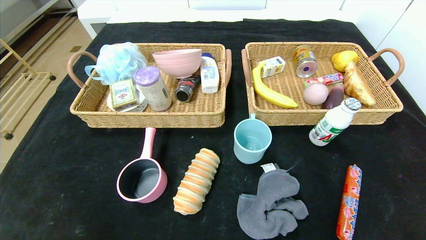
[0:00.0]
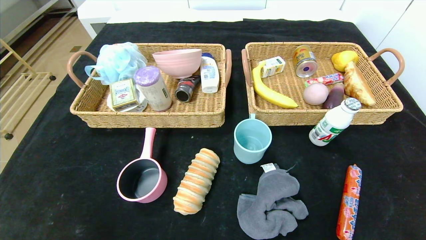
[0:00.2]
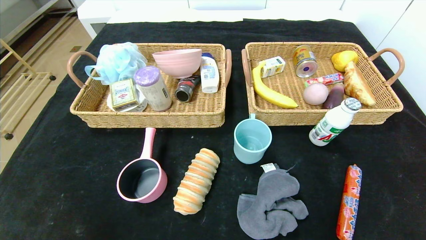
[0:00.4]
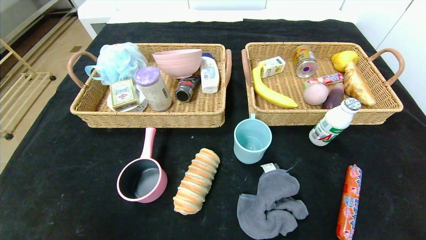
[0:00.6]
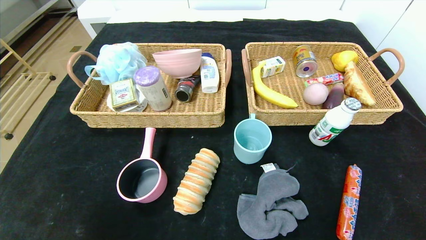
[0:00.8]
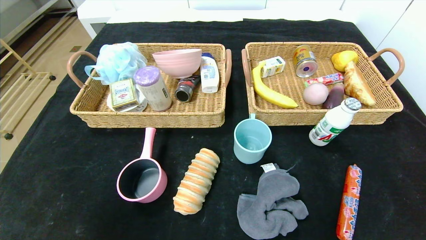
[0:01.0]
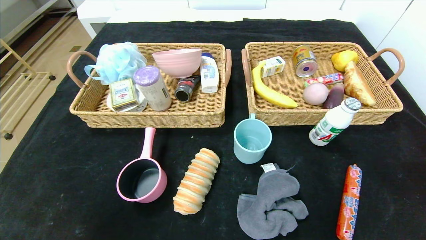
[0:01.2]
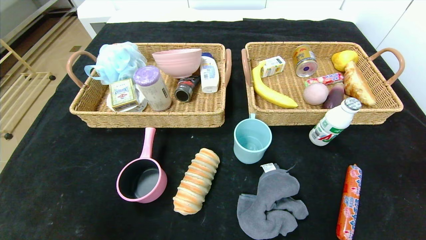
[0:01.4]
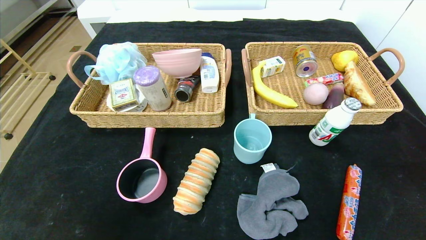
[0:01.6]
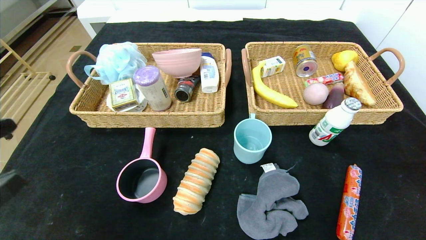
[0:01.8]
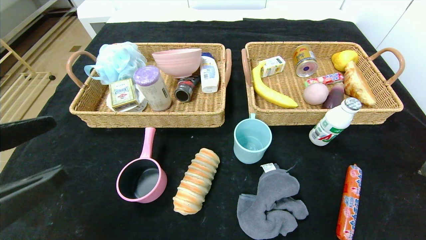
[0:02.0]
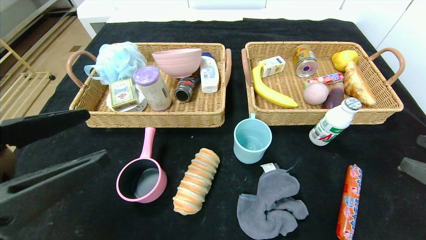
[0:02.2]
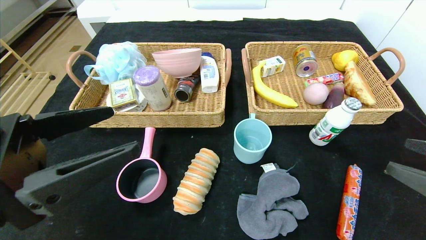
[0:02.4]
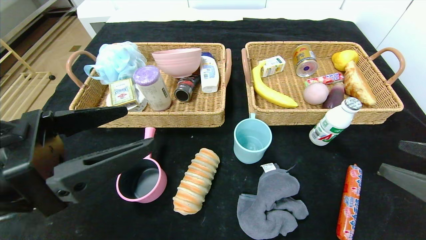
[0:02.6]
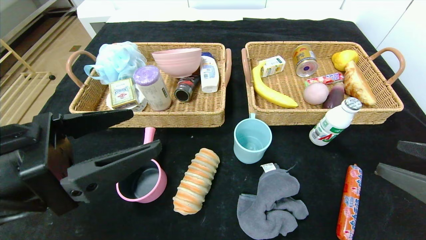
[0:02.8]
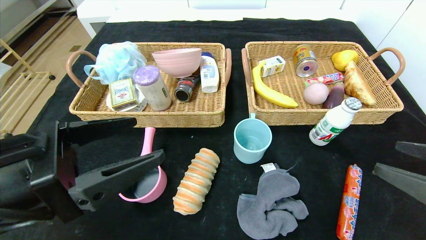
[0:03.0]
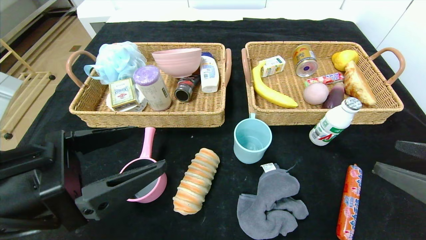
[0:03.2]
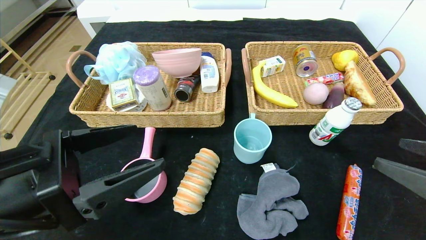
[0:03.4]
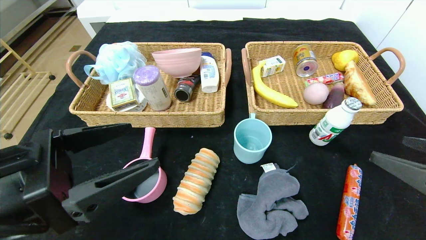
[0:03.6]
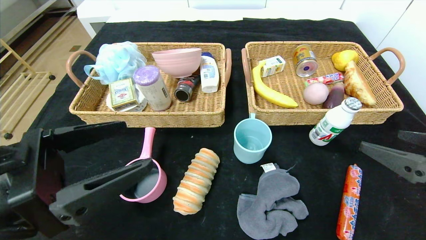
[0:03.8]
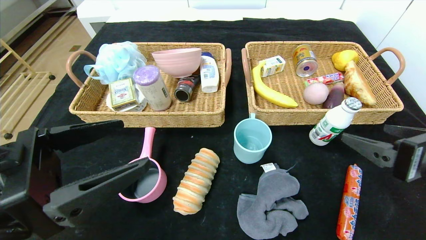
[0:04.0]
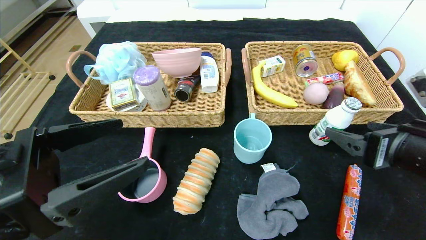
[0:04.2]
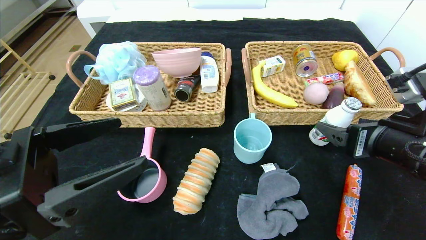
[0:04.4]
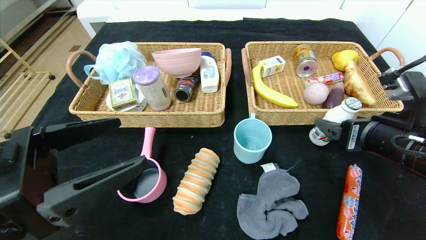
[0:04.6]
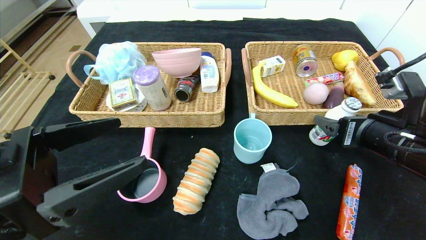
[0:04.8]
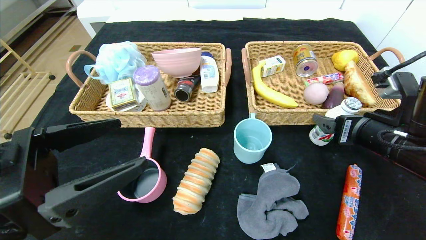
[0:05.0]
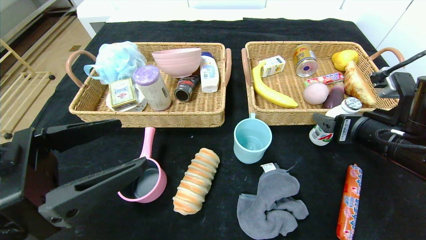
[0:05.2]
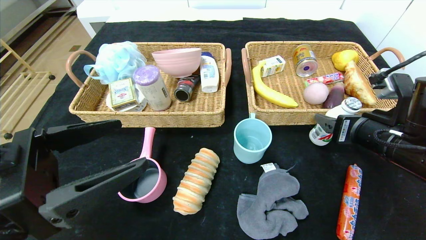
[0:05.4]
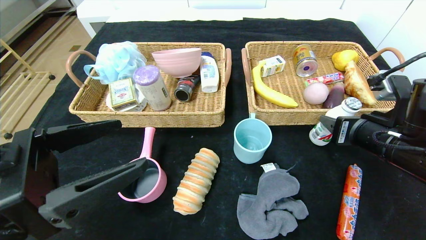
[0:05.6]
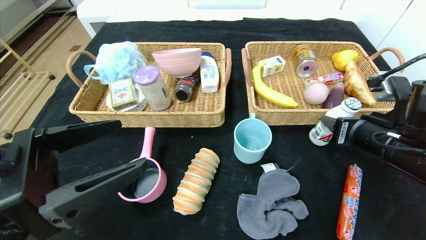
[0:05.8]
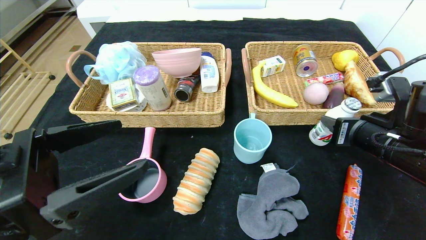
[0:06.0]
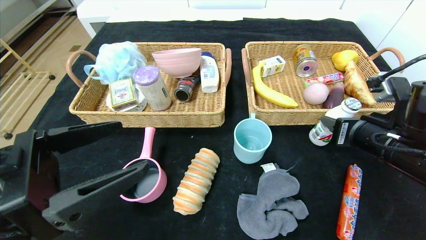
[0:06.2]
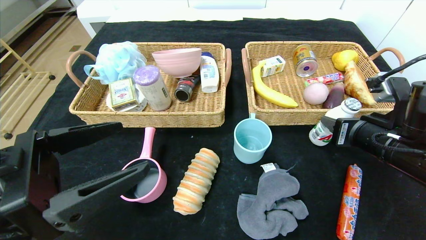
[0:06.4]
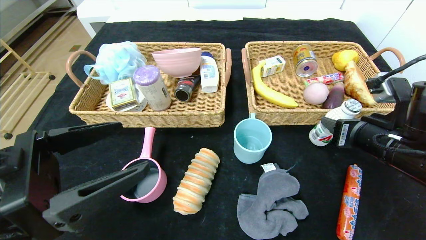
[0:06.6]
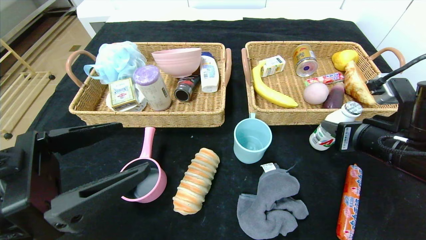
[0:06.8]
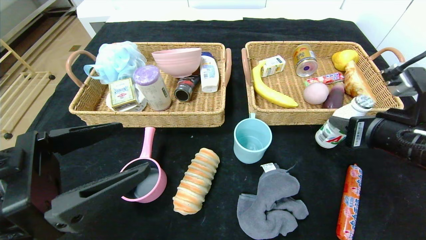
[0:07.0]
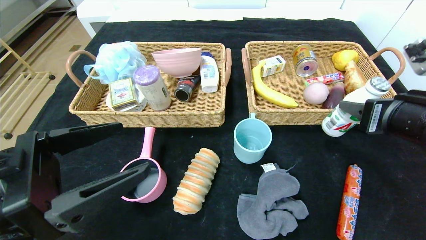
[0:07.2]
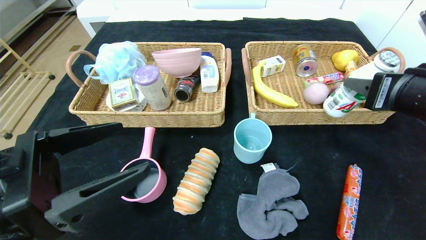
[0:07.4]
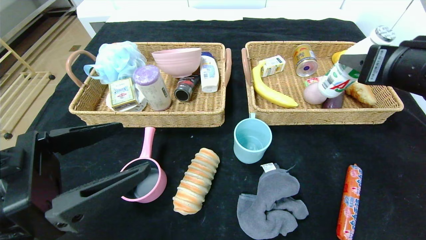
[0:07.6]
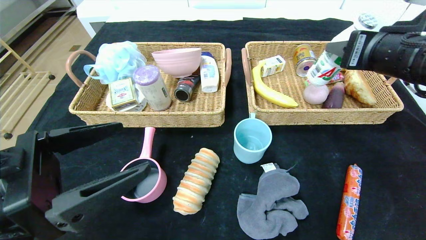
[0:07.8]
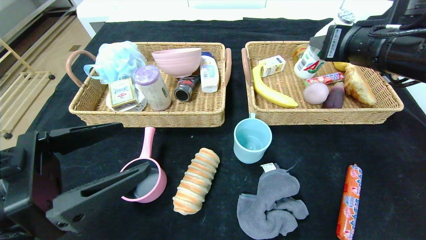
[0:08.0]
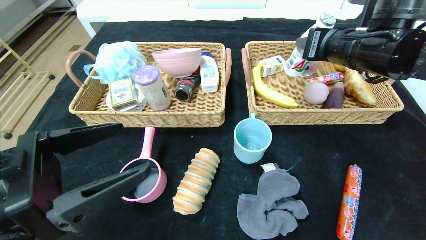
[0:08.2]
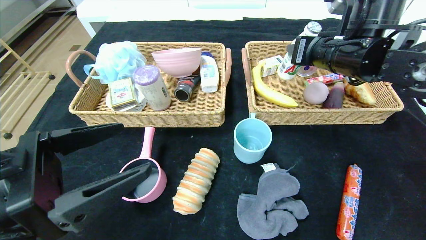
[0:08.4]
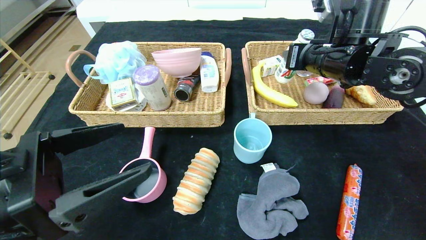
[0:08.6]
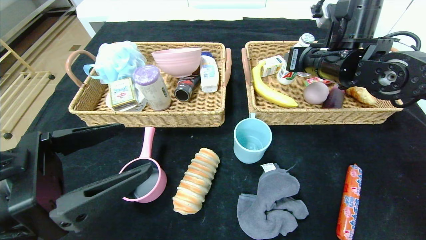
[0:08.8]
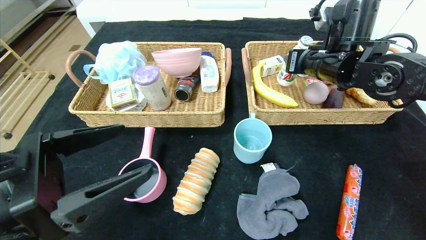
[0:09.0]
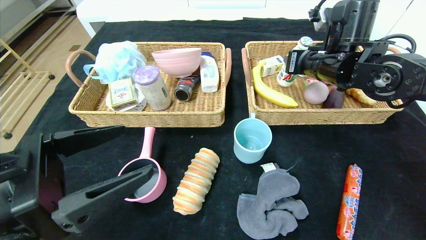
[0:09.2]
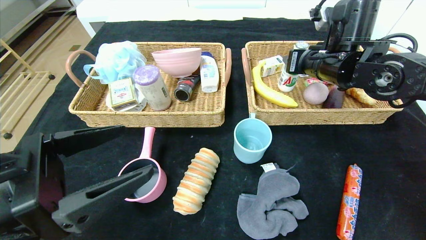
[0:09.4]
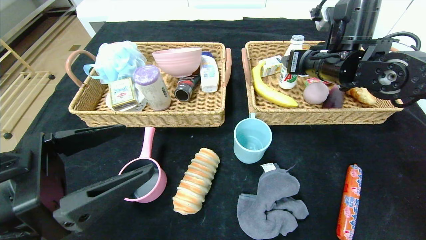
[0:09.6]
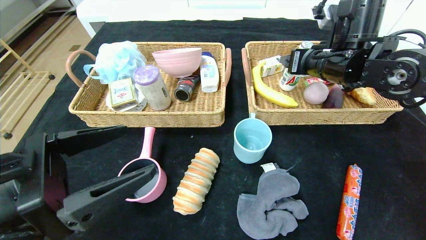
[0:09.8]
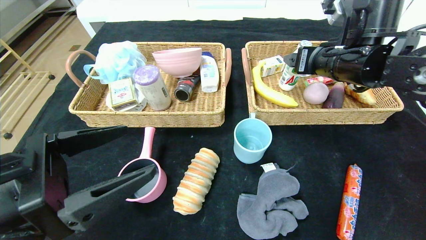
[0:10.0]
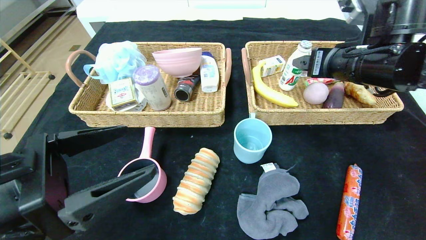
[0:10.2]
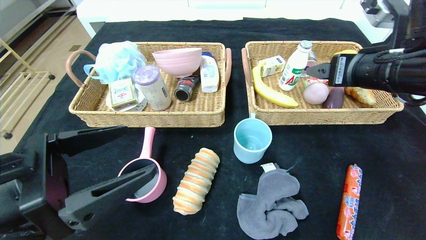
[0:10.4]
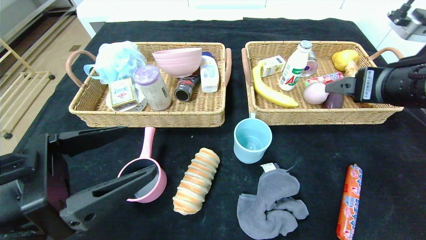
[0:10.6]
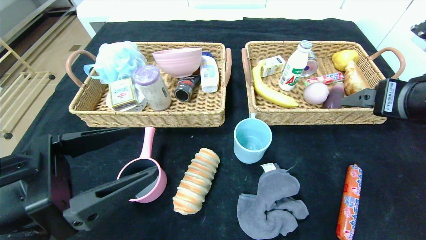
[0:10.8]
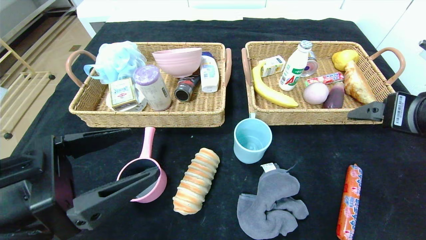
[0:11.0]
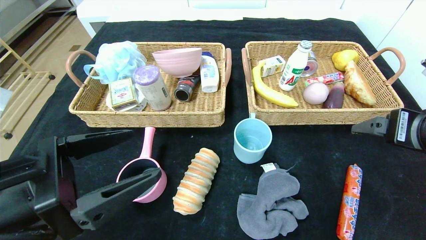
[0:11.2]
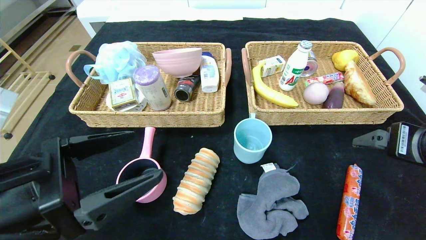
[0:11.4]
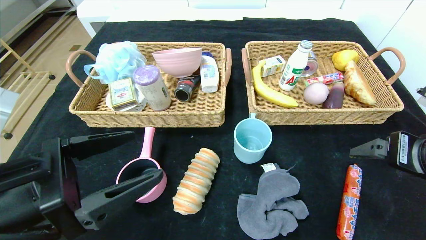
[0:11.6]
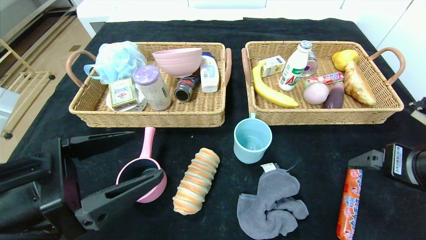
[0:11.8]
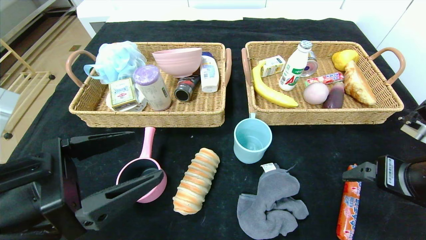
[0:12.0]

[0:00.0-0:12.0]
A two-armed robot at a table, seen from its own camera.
Step, 0:00.0 to 0:11.2: Pick up the ad milk and put it in the right basket.
0:01.6 to 0:03.0: The right gripper moves forward, some 5 cm; the left gripper heads forward and to the right, covering approximately 10 cm.
0:03.0 to 0:04.4: The right gripper heads forward and to the left, covering approximately 10 cm.
0:04.4 to 0:06.0: The right gripper closes up.
0:06.0 to 0:07.6: The right gripper heads upward, covering roughly 10 cm.
0:07.6 to 0:09.0: The right gripper shifts some 15 cm forward.
0:09.0 to 0:10.4: The right gripper is displaced backward by roughly 10 cm, and opens up.
0:10.4 to 0:12.0: The right gripper travels downward and backward by approximately 15 cm.

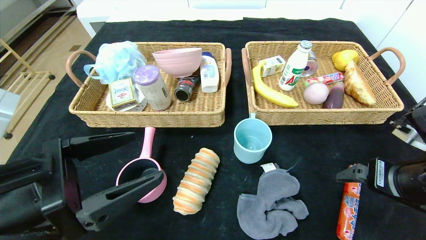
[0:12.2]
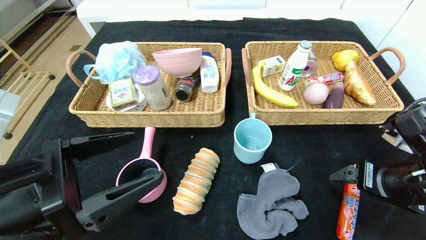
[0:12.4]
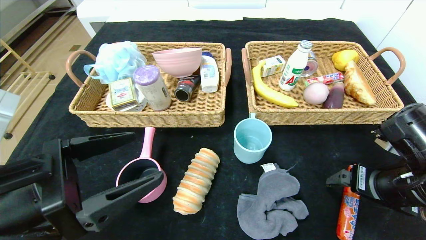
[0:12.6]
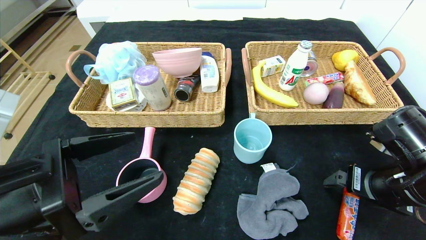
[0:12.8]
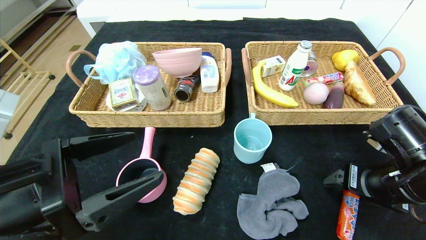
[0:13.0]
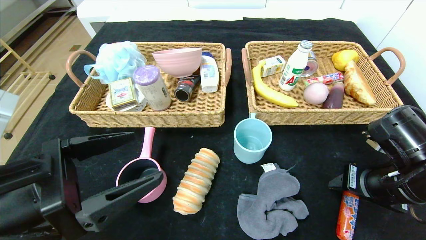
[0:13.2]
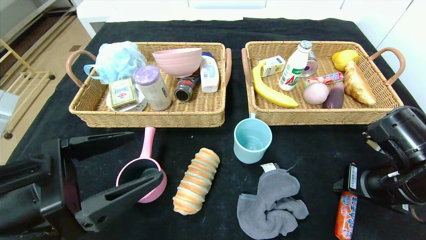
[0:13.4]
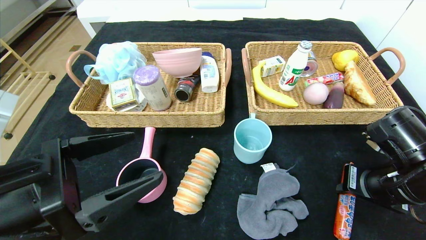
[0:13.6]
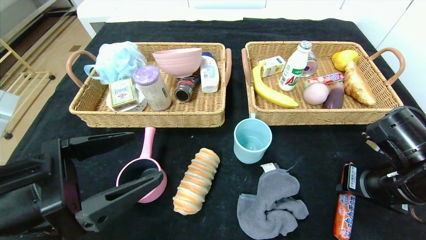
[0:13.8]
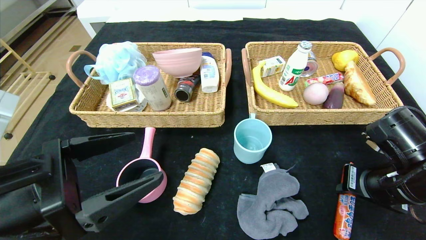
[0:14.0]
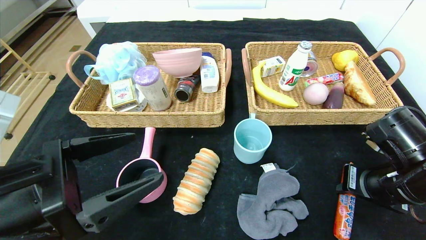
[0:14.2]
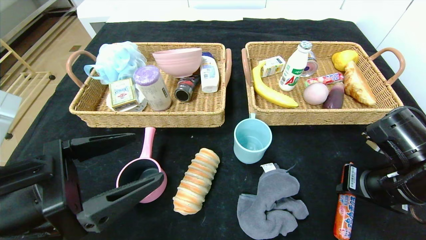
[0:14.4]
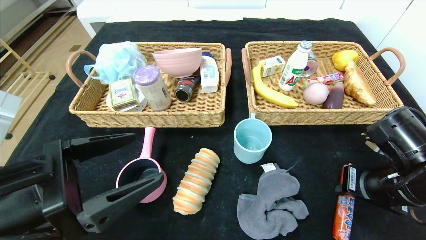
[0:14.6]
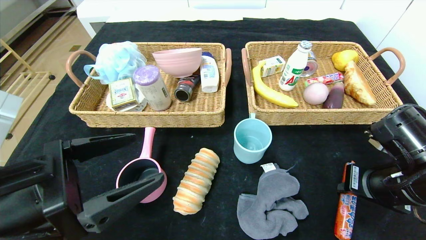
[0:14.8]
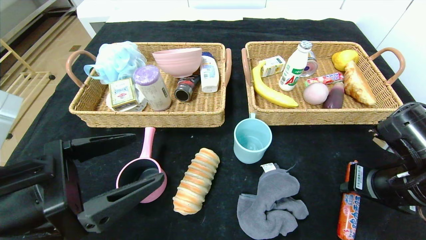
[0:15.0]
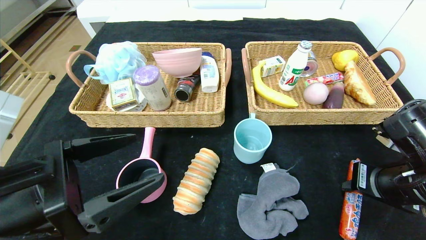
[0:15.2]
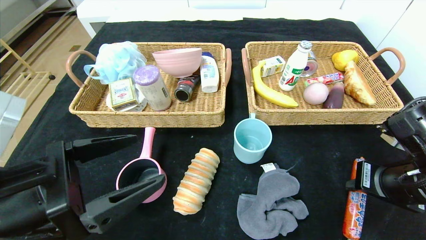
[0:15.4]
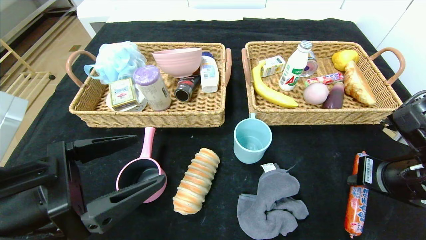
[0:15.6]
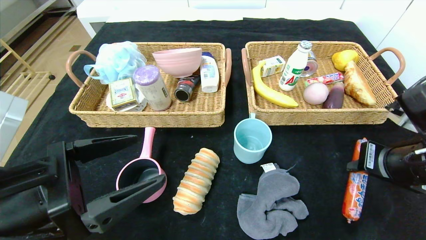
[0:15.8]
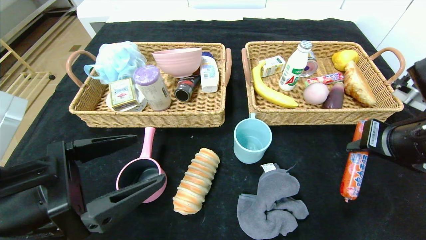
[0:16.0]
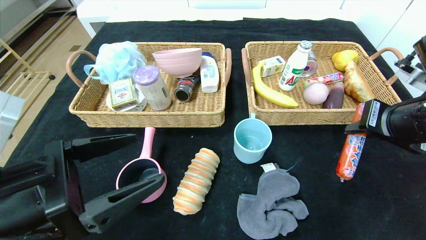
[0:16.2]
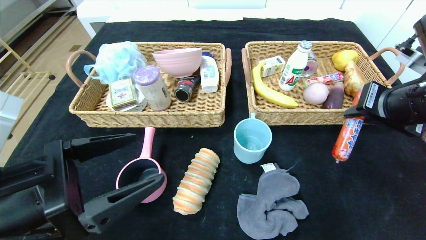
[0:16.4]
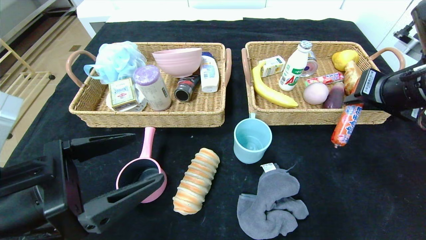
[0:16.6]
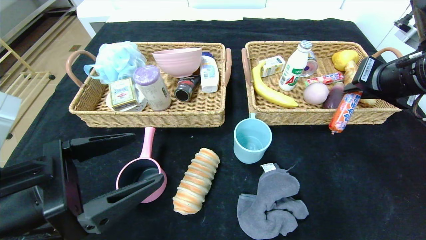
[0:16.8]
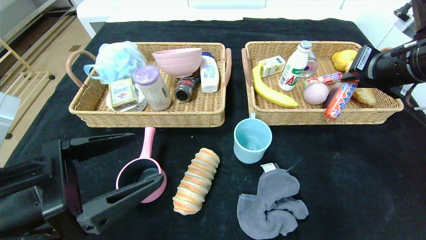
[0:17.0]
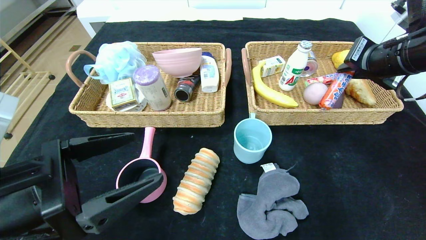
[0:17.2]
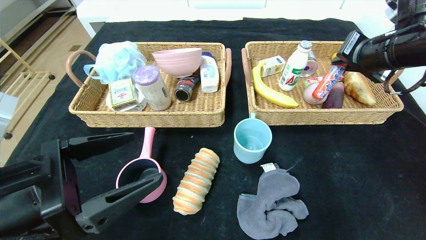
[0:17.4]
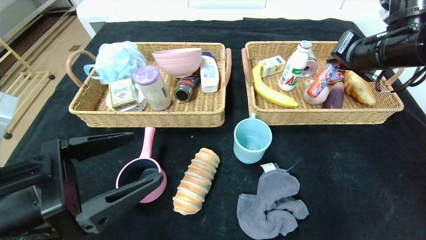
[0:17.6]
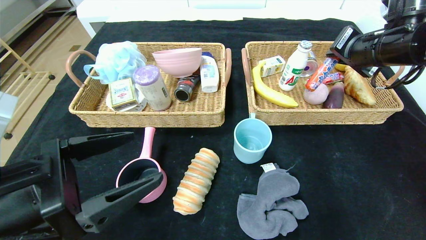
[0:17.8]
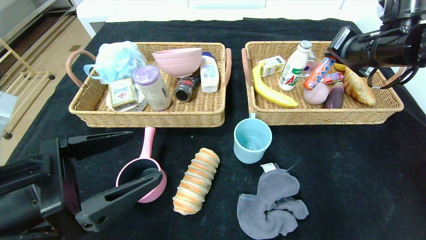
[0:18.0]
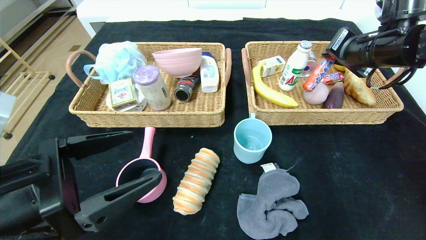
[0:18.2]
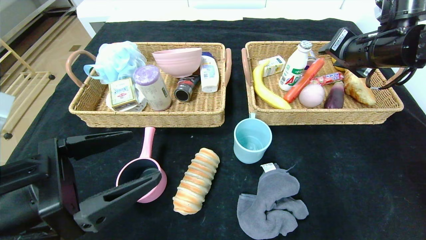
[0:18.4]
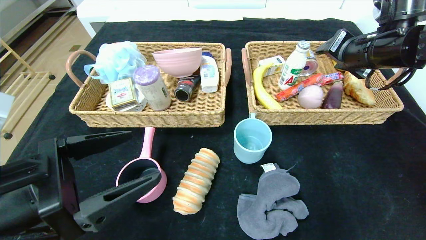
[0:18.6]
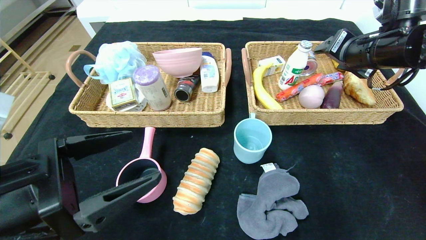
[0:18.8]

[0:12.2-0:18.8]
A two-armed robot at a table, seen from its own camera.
0:12.2 to 0:13.8: The right gripper closes up.
0:13.8 to 0:15.4: The grippers stay close to where they were, moving slightly.
0:15.4 to 0:17.2: The right gripper heads upward and forward, covering some 20 cm.
0:17.2 to 0:18.8: The right gripper opens up.
